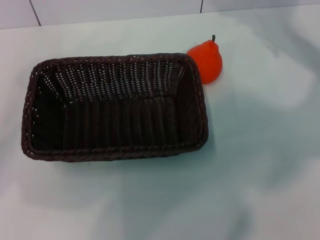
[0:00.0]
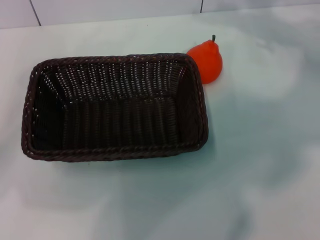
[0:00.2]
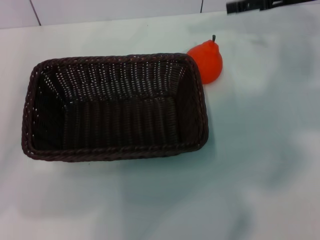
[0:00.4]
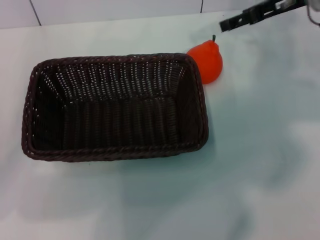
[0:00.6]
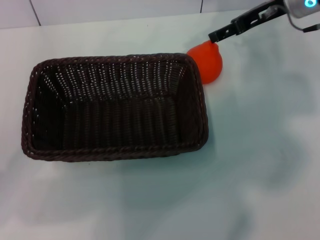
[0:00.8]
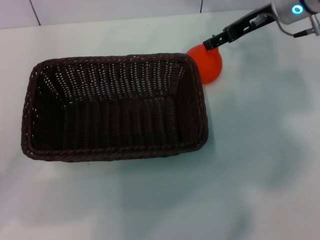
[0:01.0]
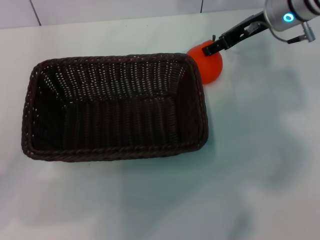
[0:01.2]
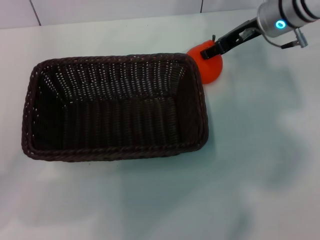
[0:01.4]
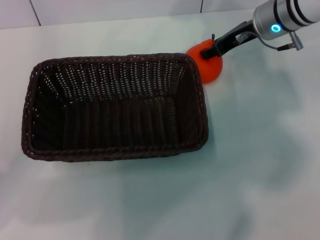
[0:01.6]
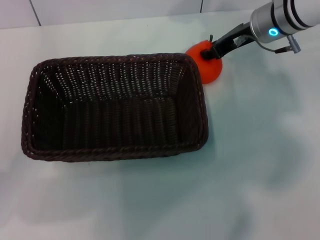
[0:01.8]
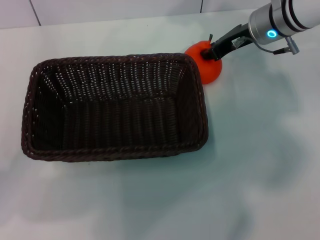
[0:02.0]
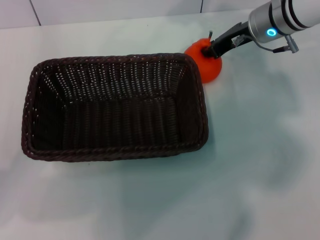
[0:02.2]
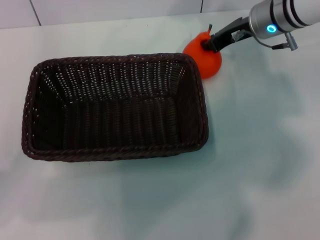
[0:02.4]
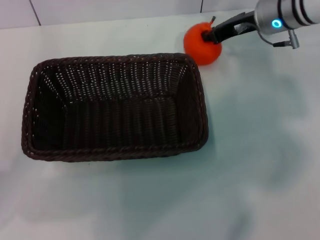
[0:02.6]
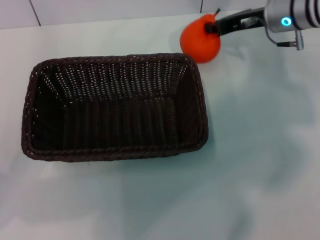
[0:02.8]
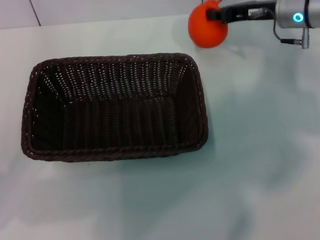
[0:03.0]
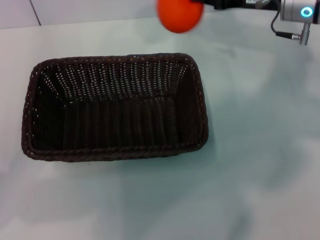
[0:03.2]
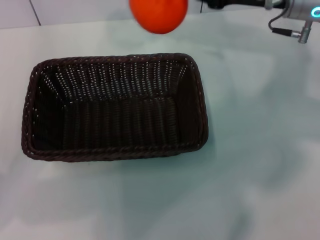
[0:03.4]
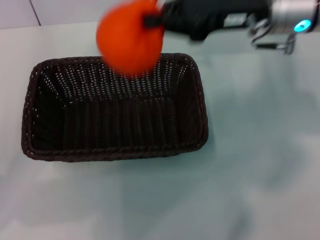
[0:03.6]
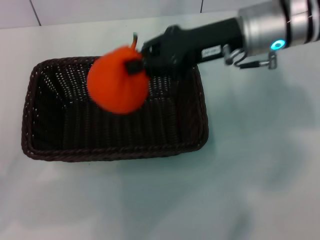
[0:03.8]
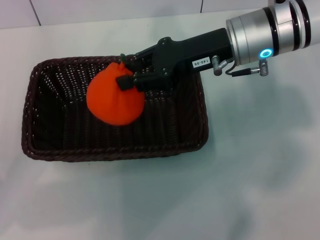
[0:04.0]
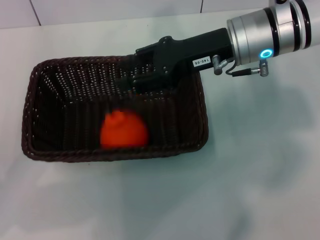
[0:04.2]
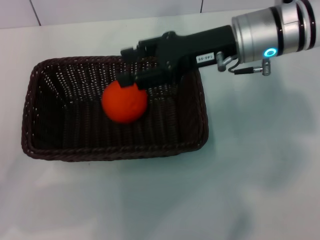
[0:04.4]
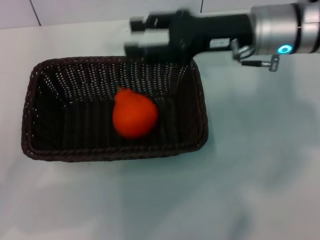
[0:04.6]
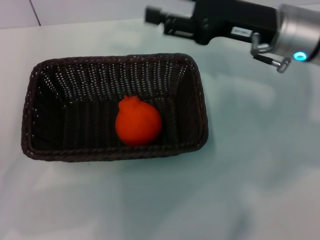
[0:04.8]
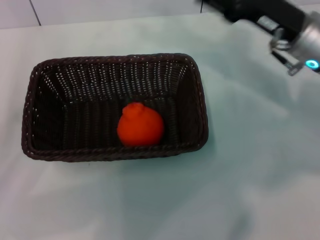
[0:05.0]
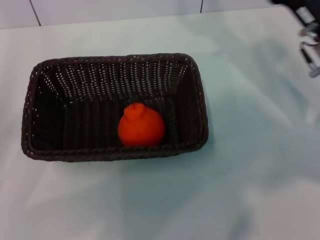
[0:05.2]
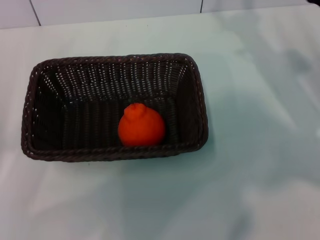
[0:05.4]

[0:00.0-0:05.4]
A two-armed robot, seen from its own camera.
Task of the whole recording: the left gripper pick up the black basket and place it horizontally in the middle of the table, the right gripper pick up the orange and place it into the black basket.
Step, 0:00.0 to 0:02.6: Pick up the orange with the right gripper.
Step, 0:03.0 to 0:04.6: Place the orange into the dark basket with the right gripper.
0:00.0 to 0:01.4: The right gripper travels to the left by roughly 10 cm.
0:01.4 to 0:02.8: The right gripper closes its fingers.
0:02.8 to 0:04.0: The right gripper travels to the left and backward by about 10 cm.
0:04.0 to 0:05.4: The right gripper moves to the right and downward, some 15 cm, and opens its fingers.
